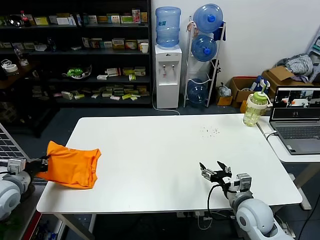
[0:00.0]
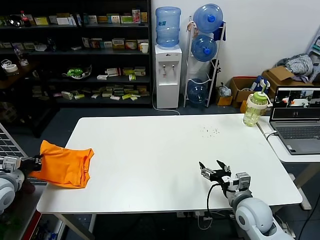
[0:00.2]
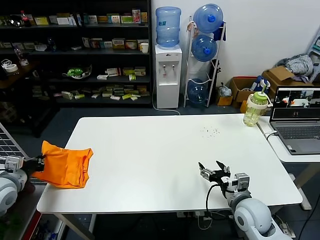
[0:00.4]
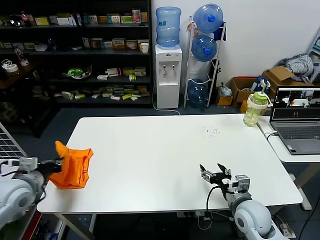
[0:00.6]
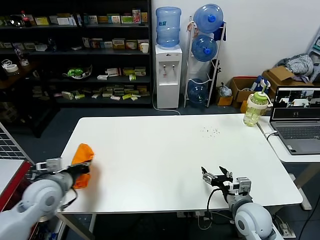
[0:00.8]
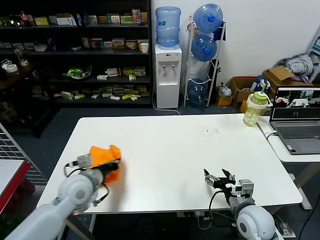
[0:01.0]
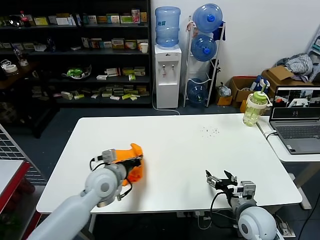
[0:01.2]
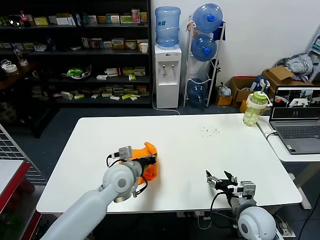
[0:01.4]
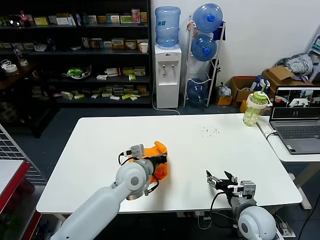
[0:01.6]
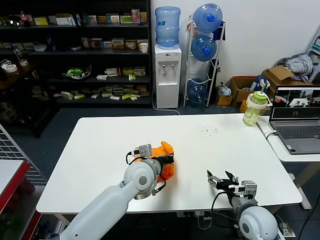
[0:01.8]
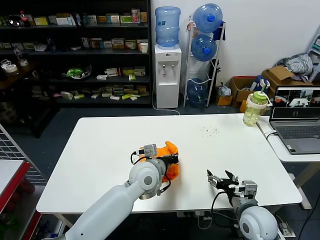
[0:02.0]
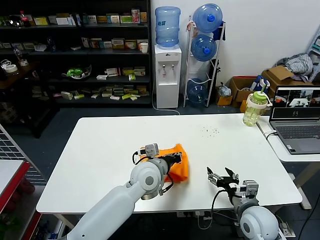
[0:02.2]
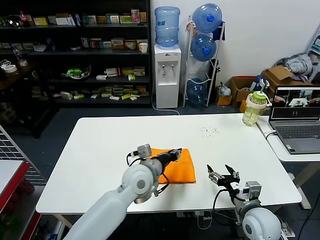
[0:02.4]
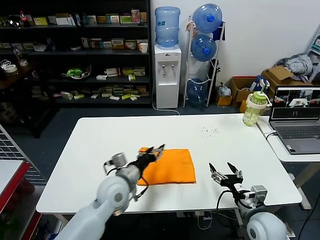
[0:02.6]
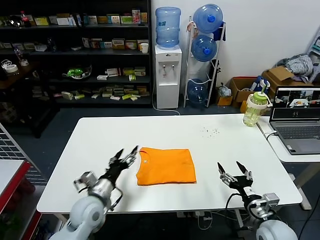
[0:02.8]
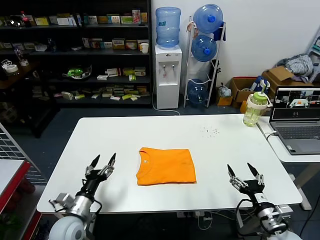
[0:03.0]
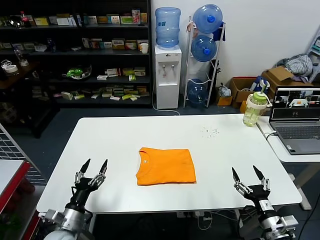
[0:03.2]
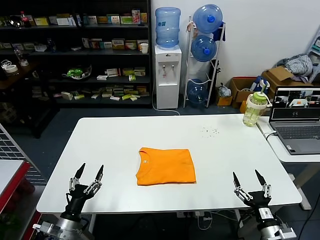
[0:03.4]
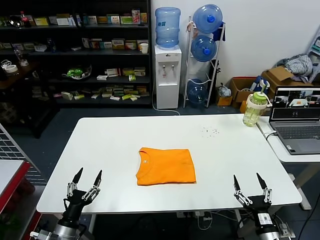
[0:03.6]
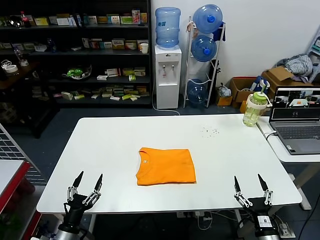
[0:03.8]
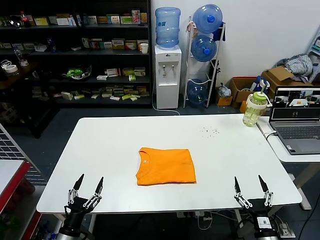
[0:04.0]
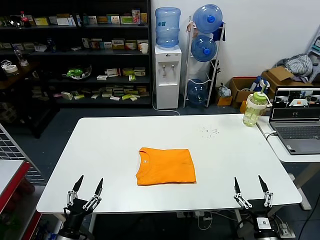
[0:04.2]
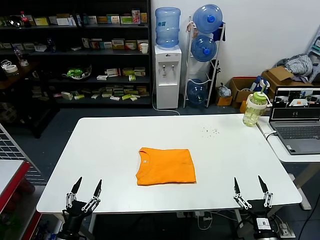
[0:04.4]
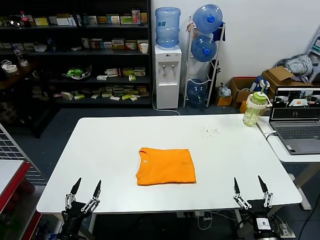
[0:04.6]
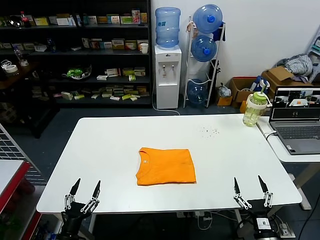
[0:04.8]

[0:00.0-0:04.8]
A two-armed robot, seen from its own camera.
Task of the whole recording: fold and organize the clothes.
Step, 0:00.0 to 0:02.2: Flip the folded clothes over with left gripper.
0:00.0 to 0:01.6: The left gripper is displaced to the right by some 35 cm.
0:01.6 to 0:03.2: The left gripper shifts roughly 30 cm to the left, backward and downward, and opens up, while the right gripper moves backward and to the right, about 10 cm.
0:03.2 to 0:04.8: The left gripper travels backward by approximately 10 cm. Meanwhile the right gripper moves downward, approximately 5 cm.
